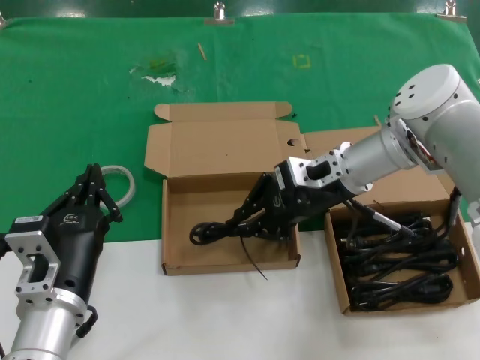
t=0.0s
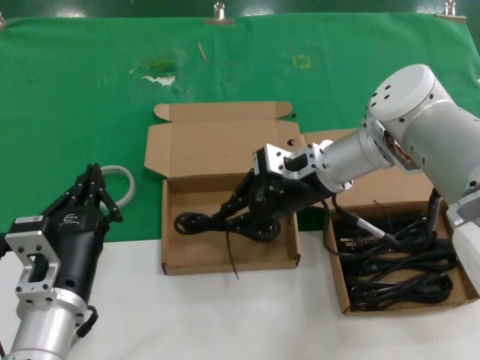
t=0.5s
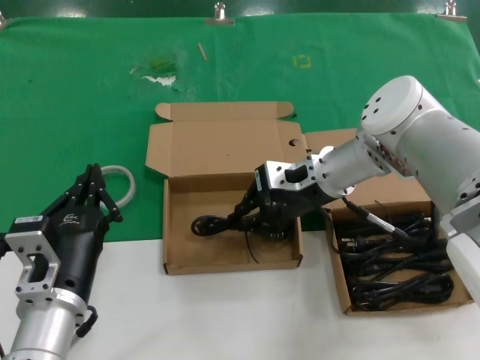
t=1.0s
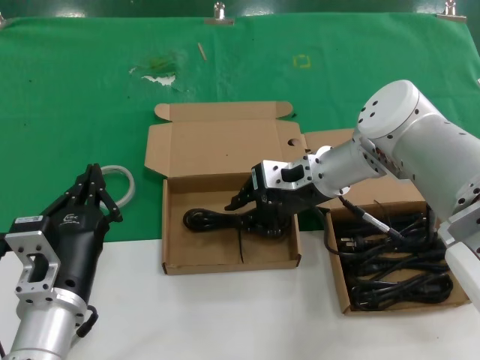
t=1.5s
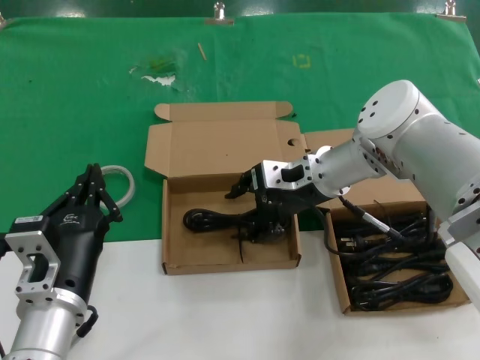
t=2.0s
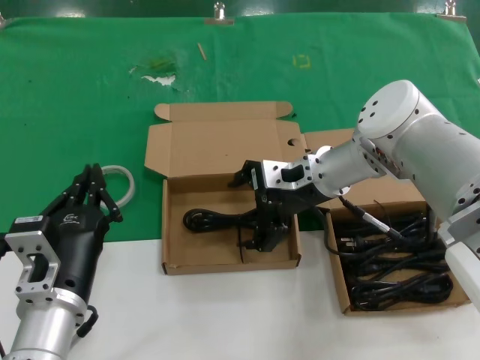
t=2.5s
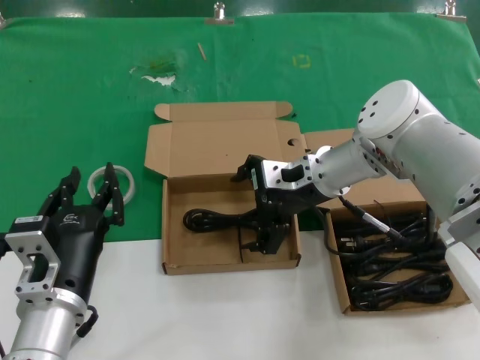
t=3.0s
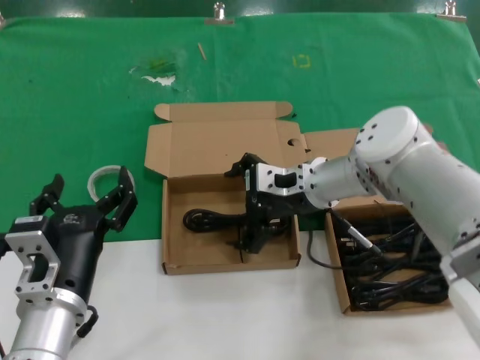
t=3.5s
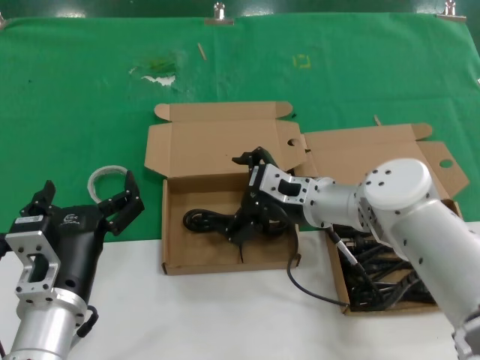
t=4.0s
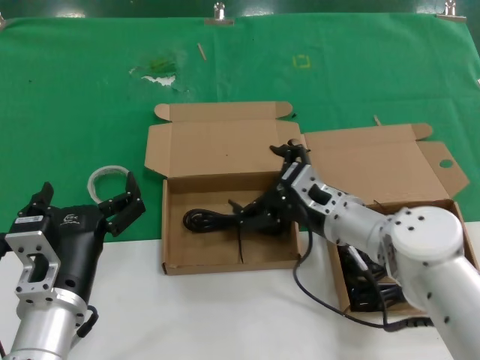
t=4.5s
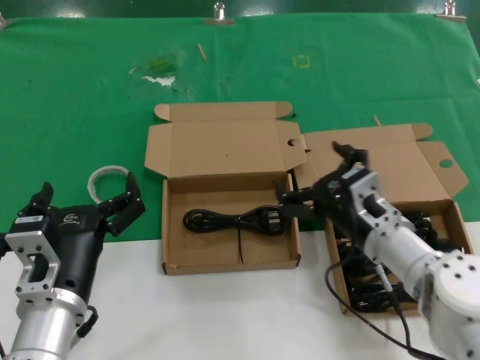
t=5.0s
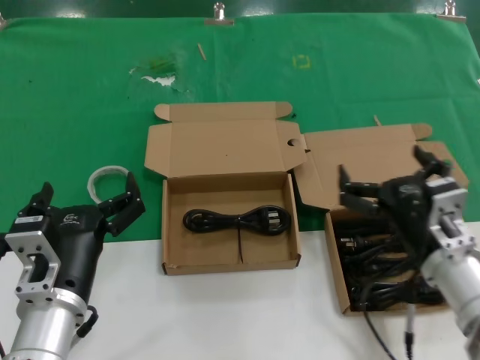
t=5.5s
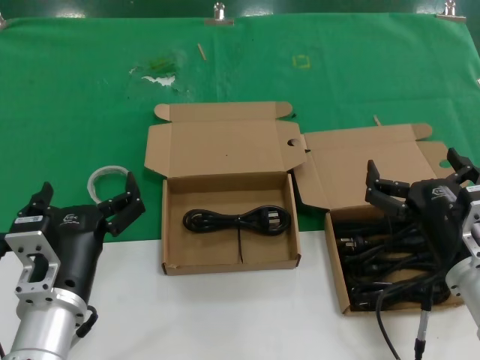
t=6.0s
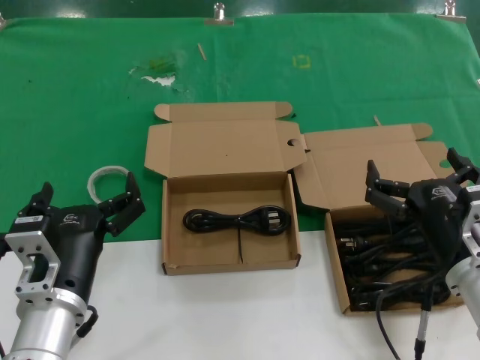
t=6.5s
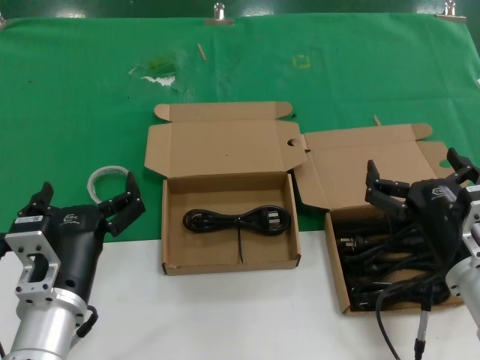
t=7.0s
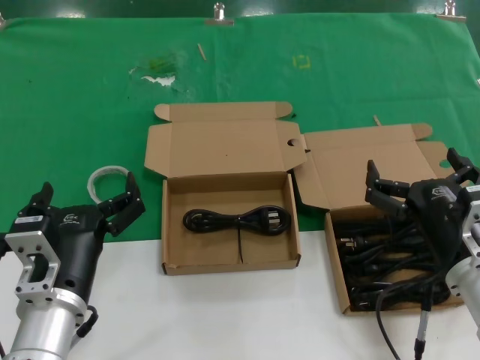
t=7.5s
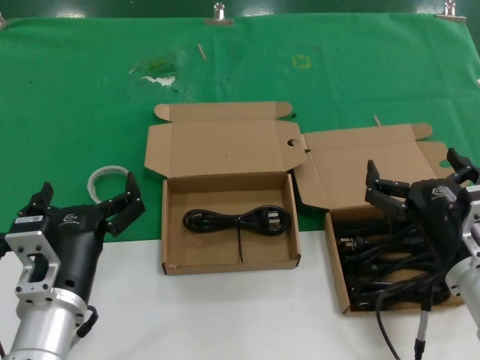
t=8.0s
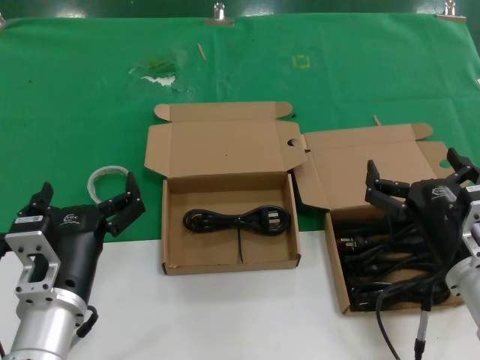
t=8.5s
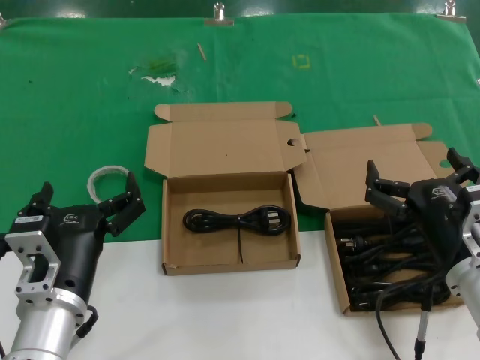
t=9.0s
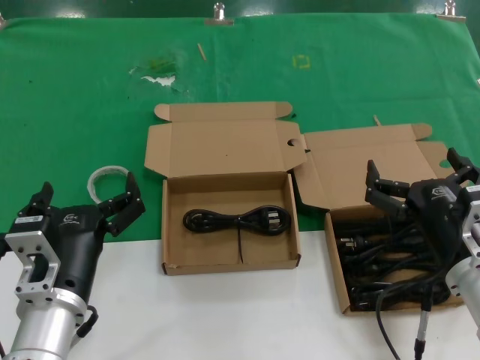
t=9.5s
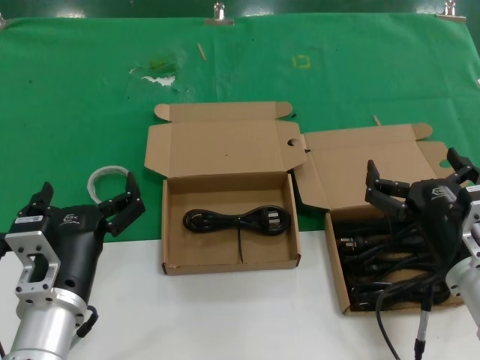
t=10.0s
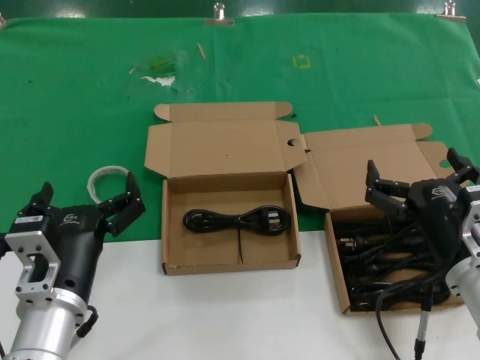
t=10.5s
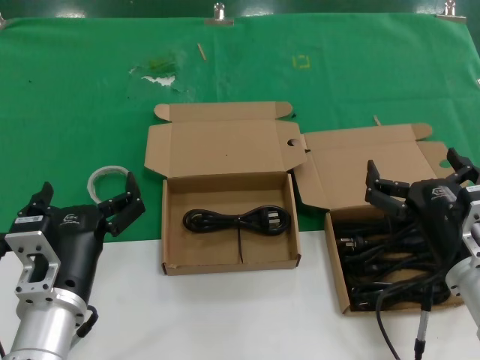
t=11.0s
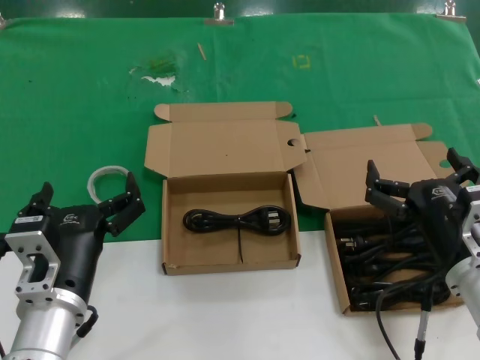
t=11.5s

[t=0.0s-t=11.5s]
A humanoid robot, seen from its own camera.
Task of the whole recording: take the parts from the box containing them and put them into an empty box.
t=0.0s to t=2.0s: There are only small adjustments of the hands.
t=2.0s to t=4.0s: The right hand shifts roughly 5 cm downward.
t=4.0s to t=6.0s: The right hand goes approximately 20 cm backward and to the right.
t=6.0s to t=11.5s: Neither hand changes place.
